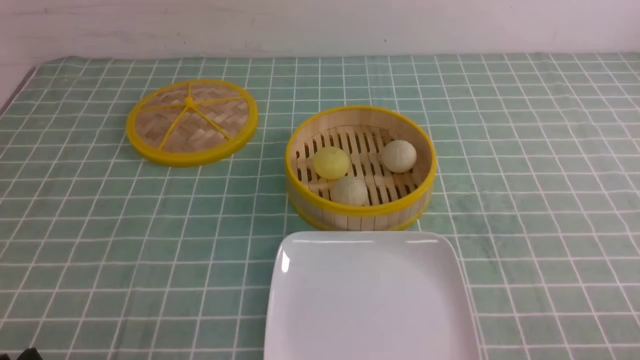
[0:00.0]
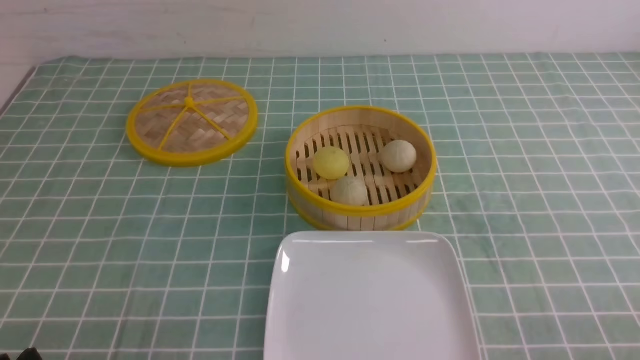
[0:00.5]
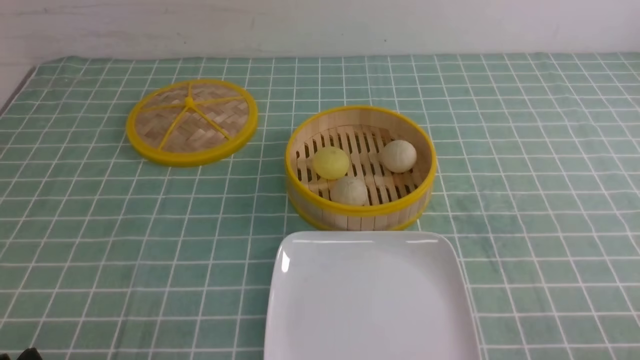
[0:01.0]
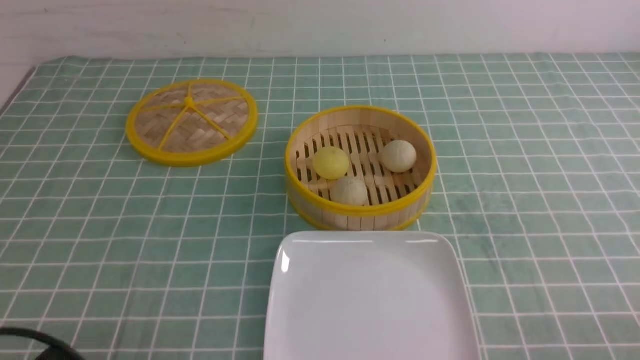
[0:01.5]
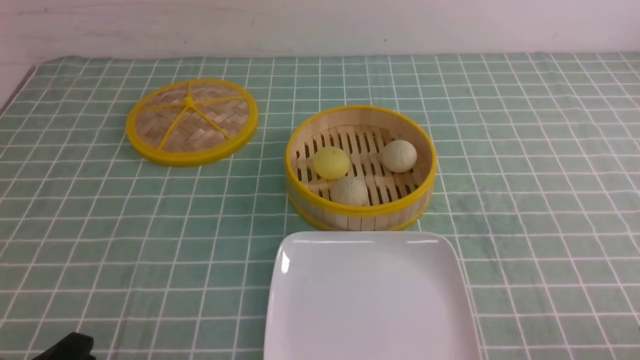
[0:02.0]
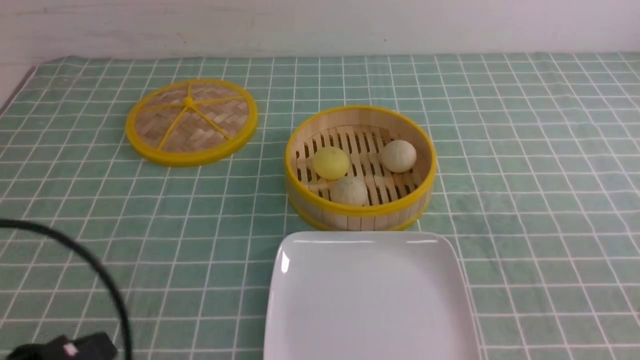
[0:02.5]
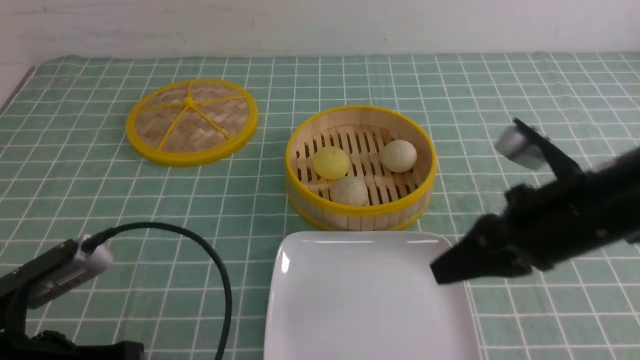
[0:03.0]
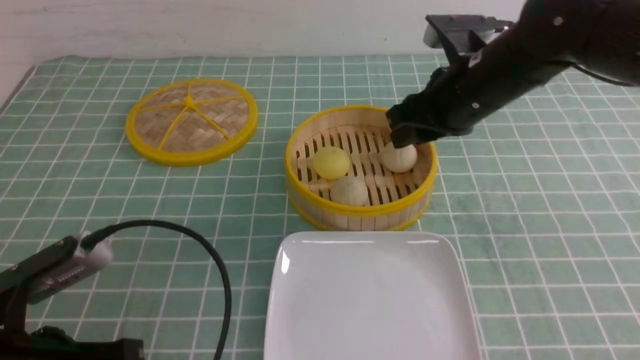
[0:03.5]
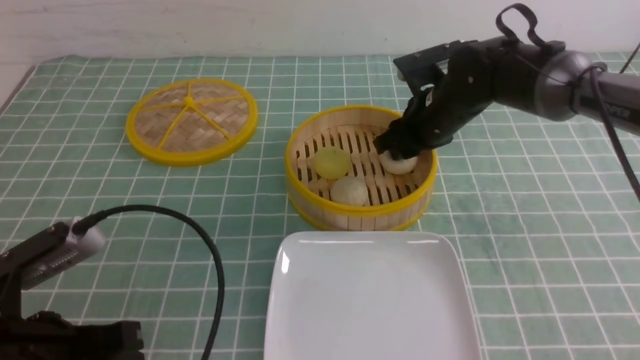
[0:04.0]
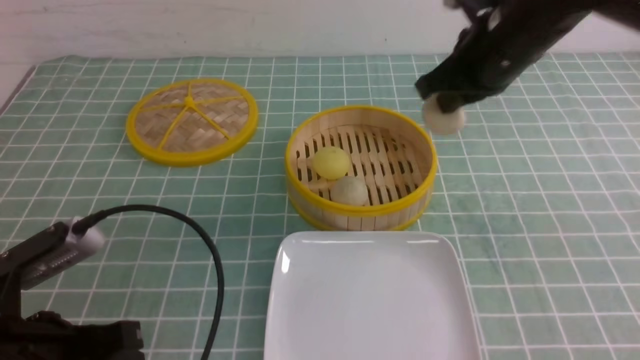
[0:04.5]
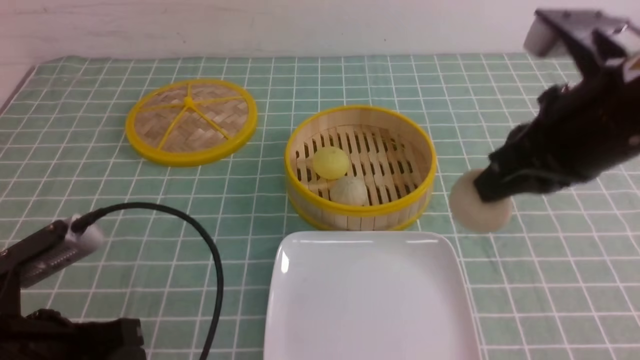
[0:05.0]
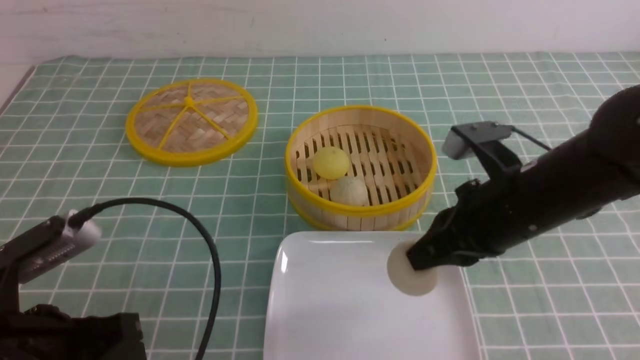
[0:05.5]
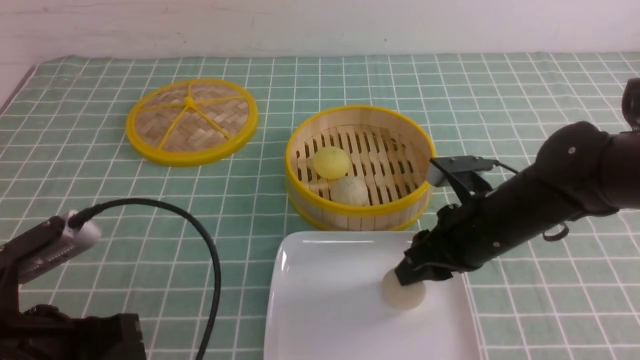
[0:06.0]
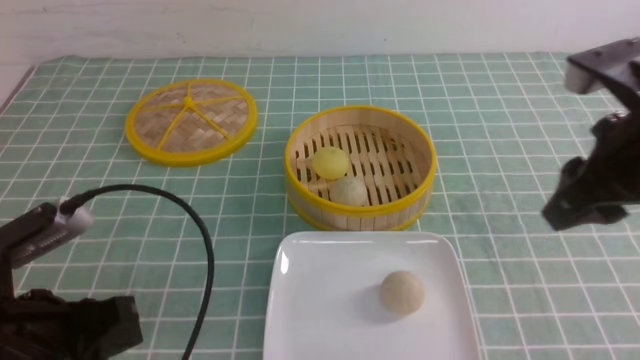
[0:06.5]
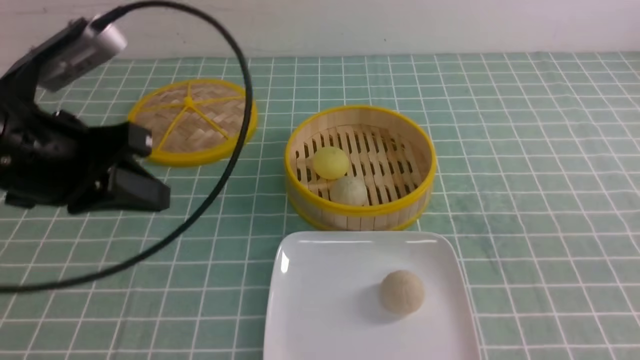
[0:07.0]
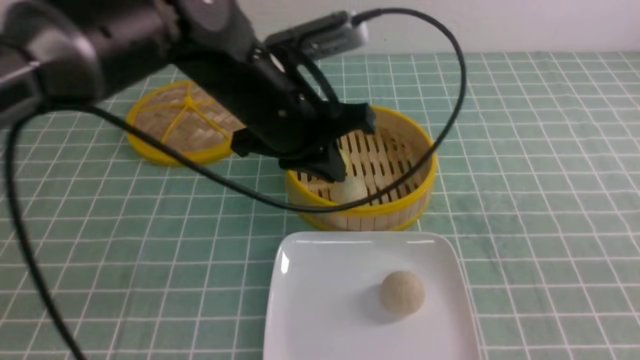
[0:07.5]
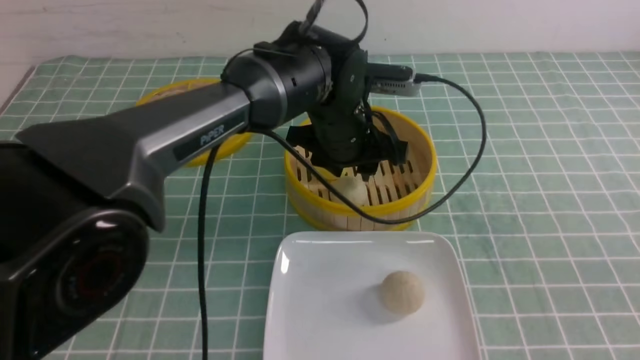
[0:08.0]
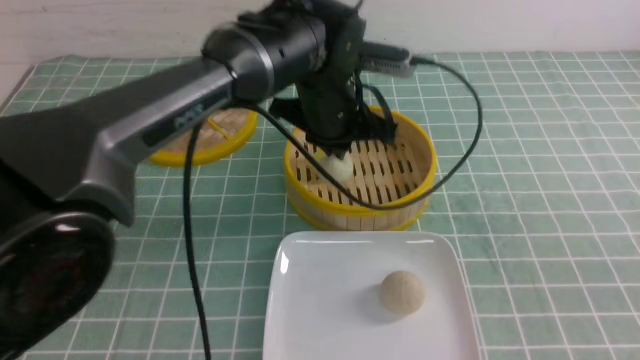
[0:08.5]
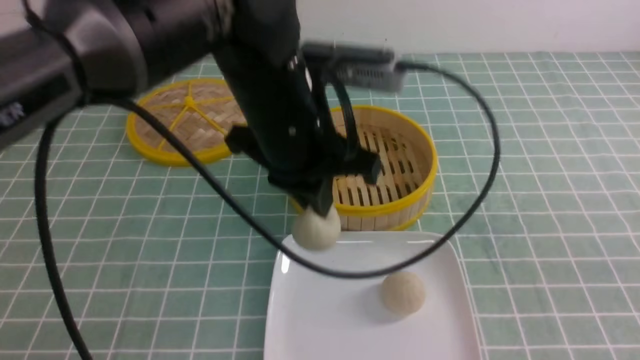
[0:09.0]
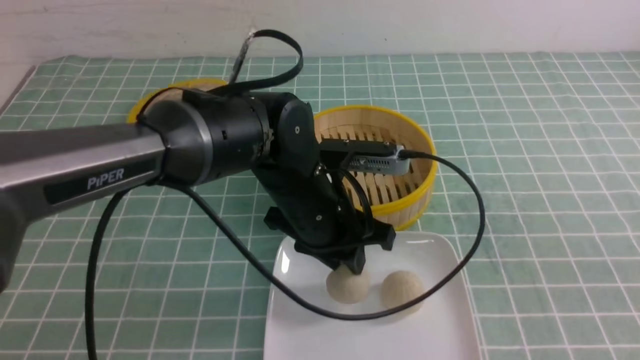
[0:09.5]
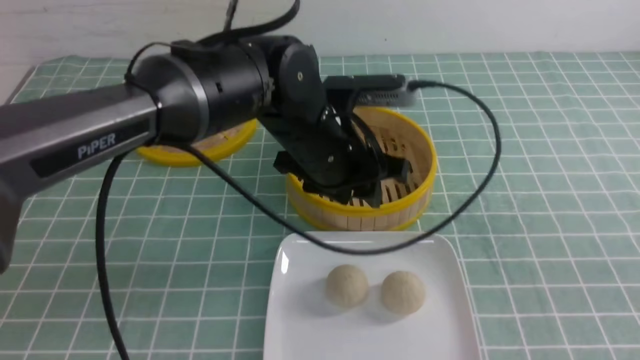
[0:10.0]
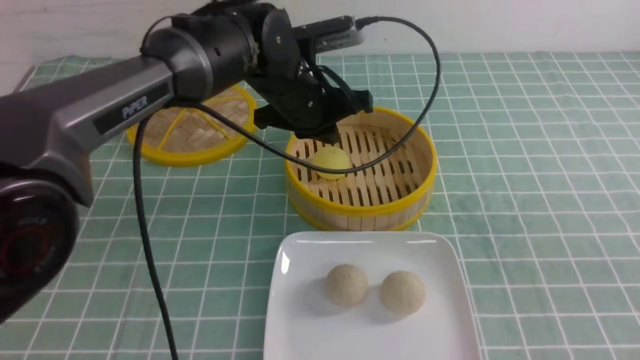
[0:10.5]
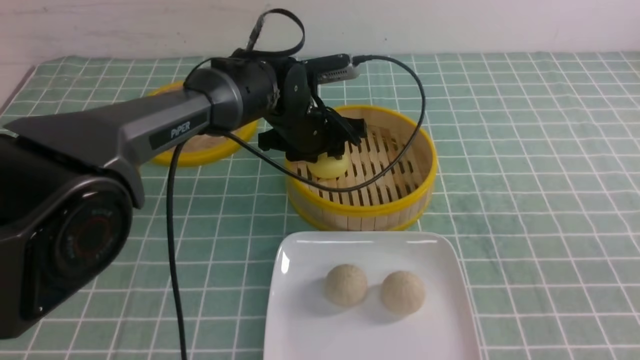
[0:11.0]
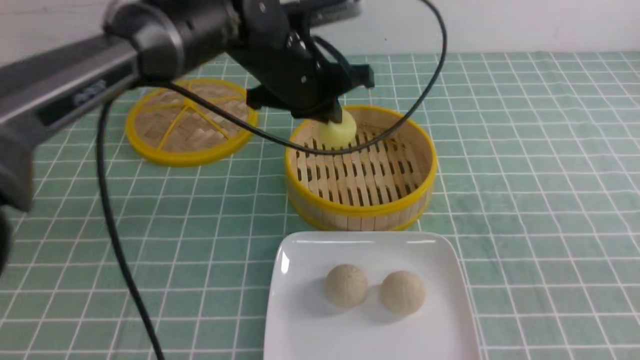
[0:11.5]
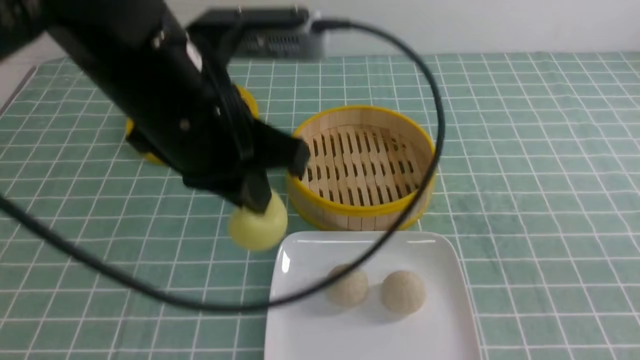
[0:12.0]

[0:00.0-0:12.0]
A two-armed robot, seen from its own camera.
Step, 0:00.0 to 0:04.0: use the right arm to grab the steamed stuffed bun that is closest to it.
Step, 0:04.5 to 0:05.5: use the right arm to put the steamed stuffed bun into the plate.
Step, 0:06.0 to 0:08.0: use the left arm to grab the steamed stuffed bun that is closest to it.
Step, 0:08.5 to 0:09.0: use the left arm to put the steamed stuffed bun into the plate.
Step, 0:10.0 to 0:11.0: use the left arm to grab the steamed stuffed bun that is closest to it.
0:02.0 to 0:04.0: The left gripper is displaced forward by about 10 cm. Meanwhile the right gripper shifts about 40 cm forward and to the left, and closes, then opens again.
0:04.0 to 0:06.0: The right gripper travels backward by some 15 cm, and closes and opens again.
0:06.0 to 0:08.0: The right gripper travels backward, to the right and upward by about 25 cm, and closes up; the left gripper shifts approximately 35 cm forward and to the right, and opens up.
0:08.0 to 0:10.0: The left gripper goes up and down, about 10 cm each way, reversing 2 times, and closes, then opens again.
0:10.0 to 0:12.0: The left gripper heads backward, upward and to the left, covering about 15 cm, and closes its fingers.

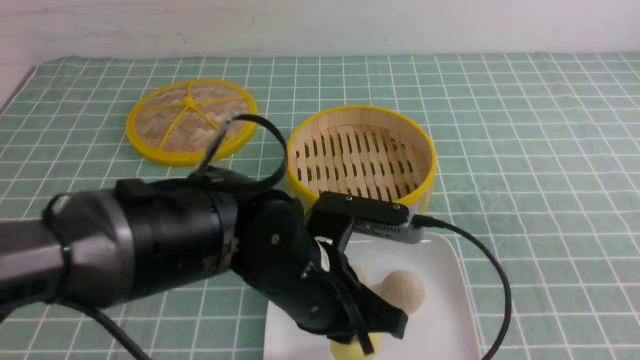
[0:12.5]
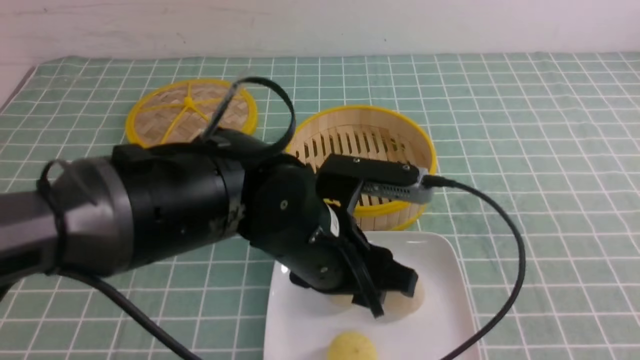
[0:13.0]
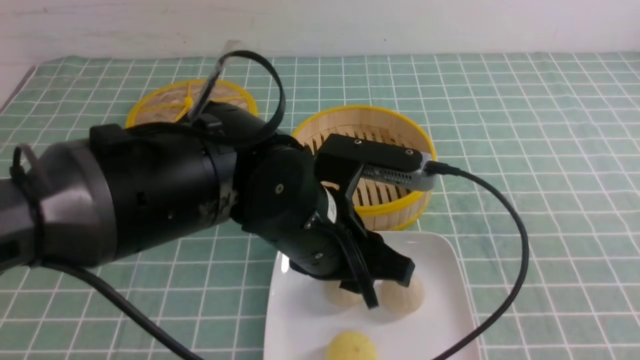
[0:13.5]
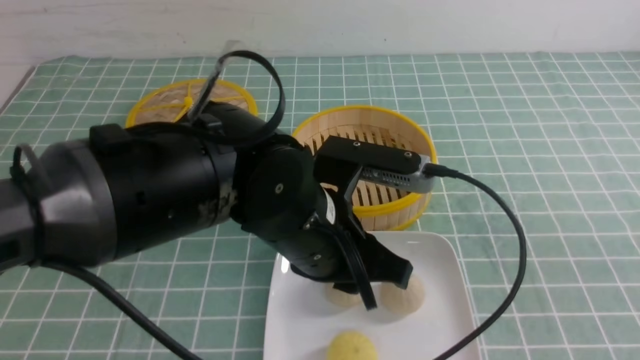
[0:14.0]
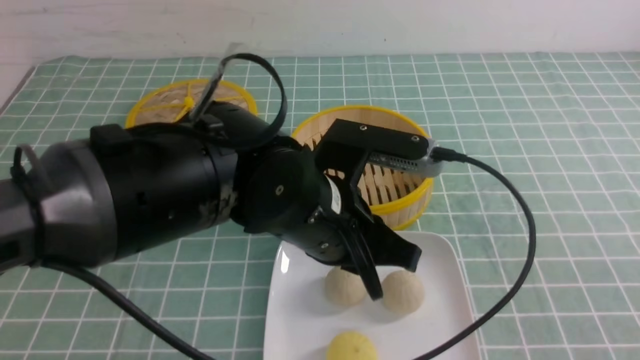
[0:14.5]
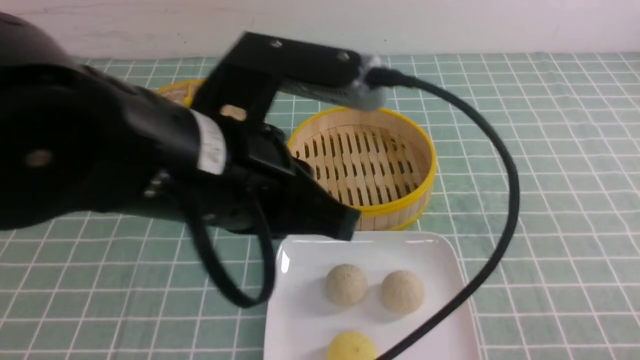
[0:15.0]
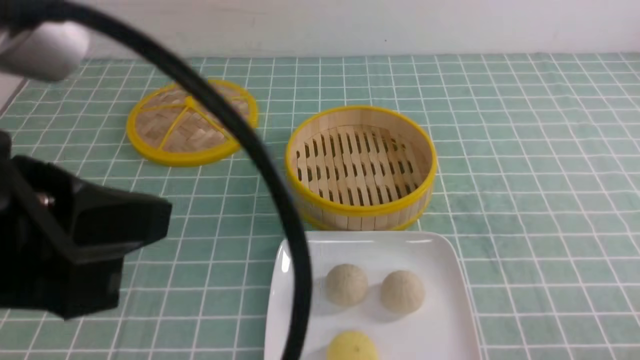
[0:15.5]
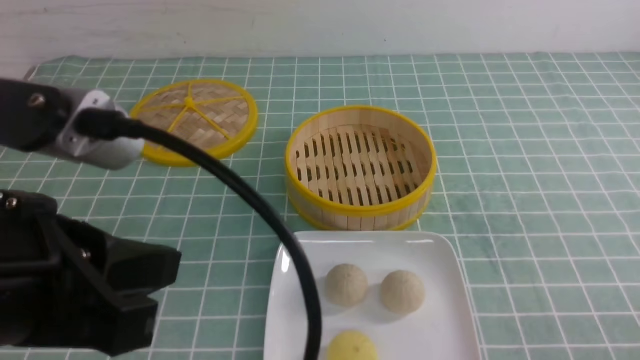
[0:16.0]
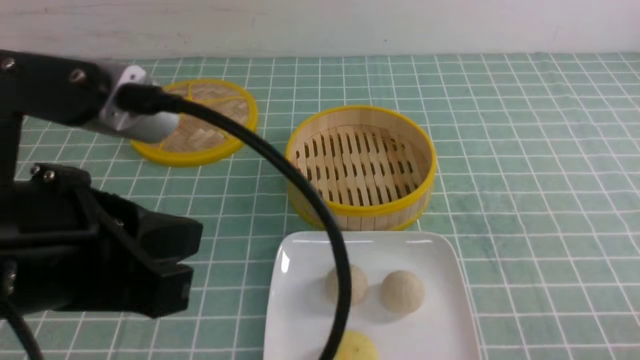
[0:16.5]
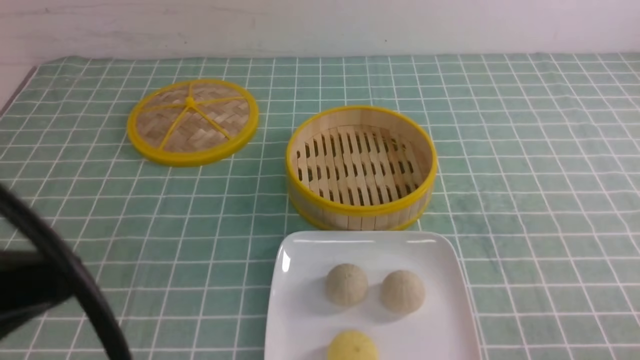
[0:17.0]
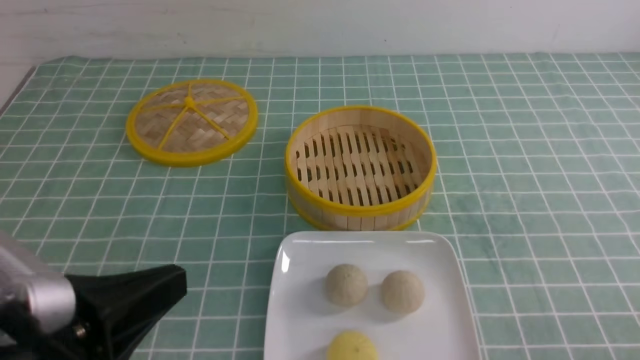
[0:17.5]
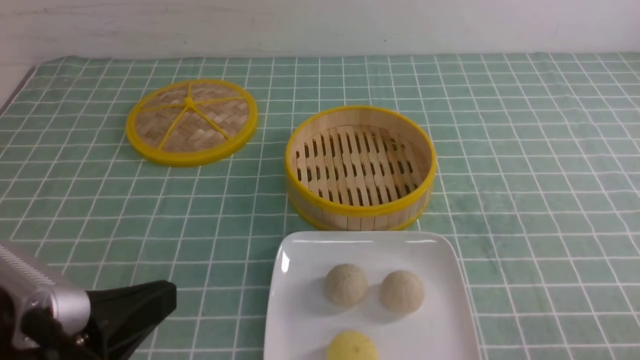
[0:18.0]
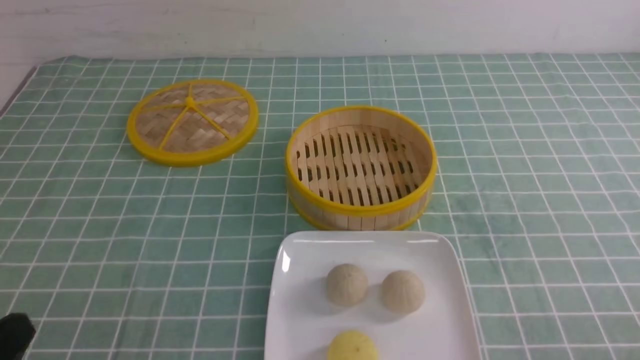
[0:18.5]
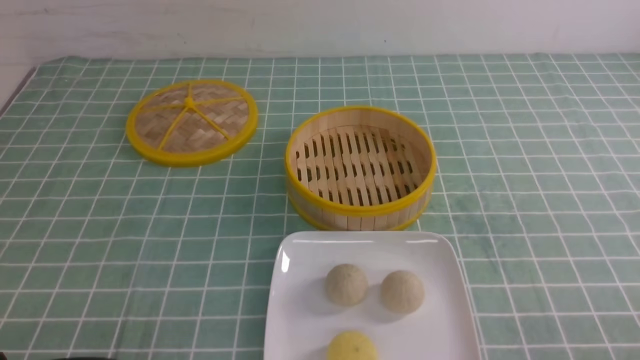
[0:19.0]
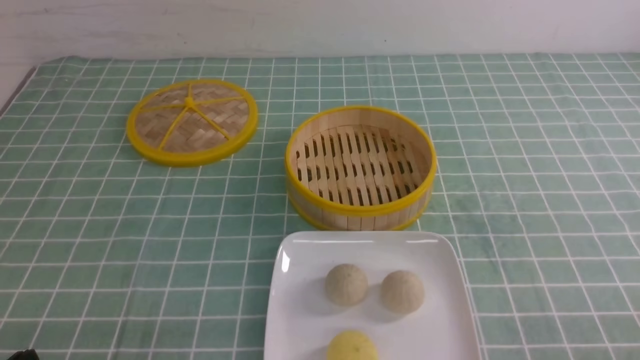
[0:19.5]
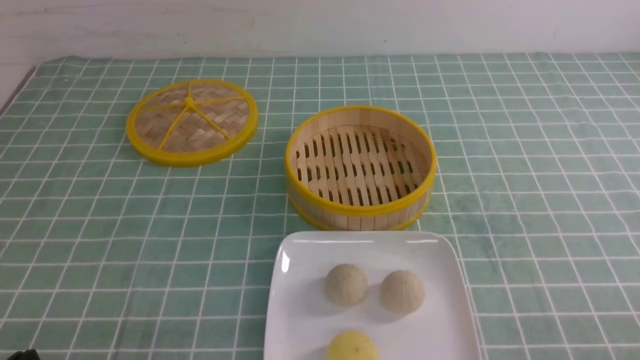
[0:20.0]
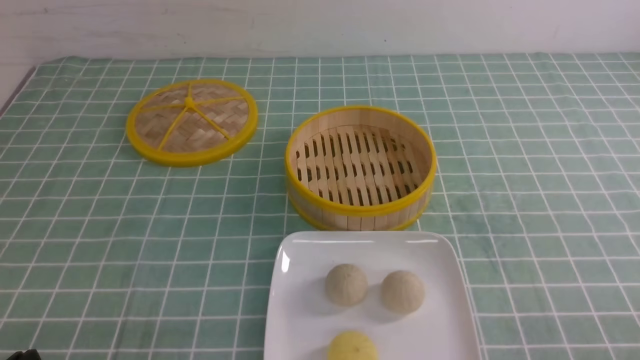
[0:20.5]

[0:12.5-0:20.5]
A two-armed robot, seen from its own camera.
0:12.5 to 0:14.5: The left gripper shifts about 5 cm upward, and opens, then closes again. The right gripper goes about 10 cm downward.
0:14.5 to 0:16.5: The left gripper heads to the left, backward and upward, covering about 20 cm. The right gripper is displaced downward by about 5 cm.
0:16.5 to 0:18.5: The left gripper shifts roughly 20 cm downward and to the left.
